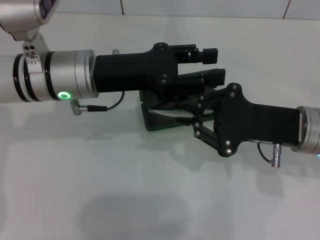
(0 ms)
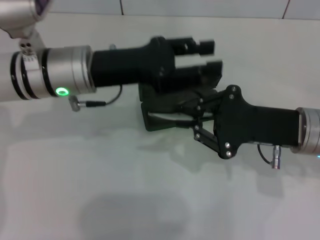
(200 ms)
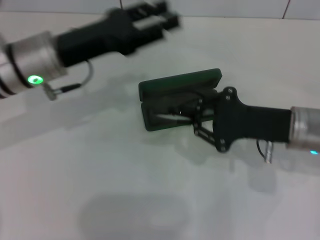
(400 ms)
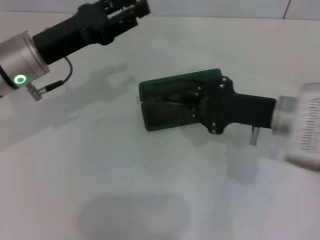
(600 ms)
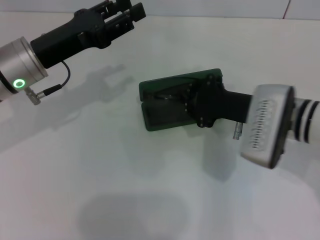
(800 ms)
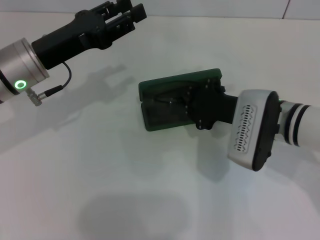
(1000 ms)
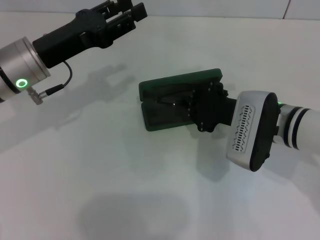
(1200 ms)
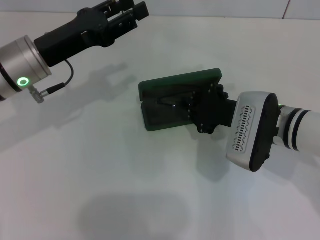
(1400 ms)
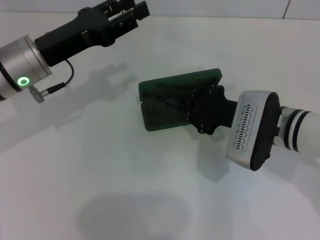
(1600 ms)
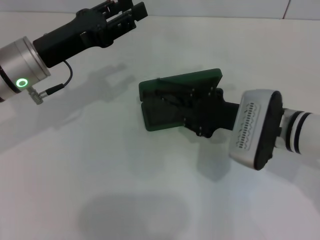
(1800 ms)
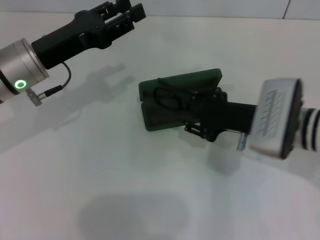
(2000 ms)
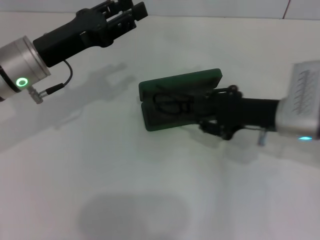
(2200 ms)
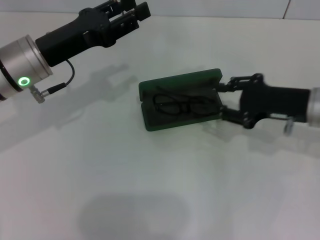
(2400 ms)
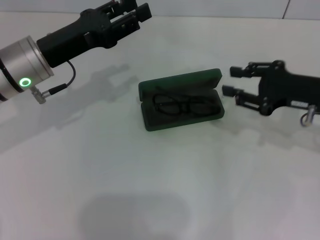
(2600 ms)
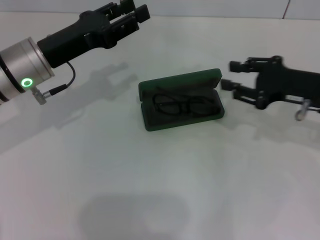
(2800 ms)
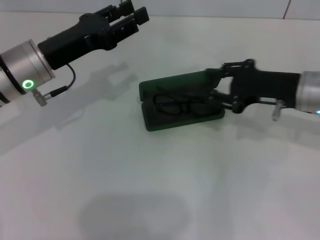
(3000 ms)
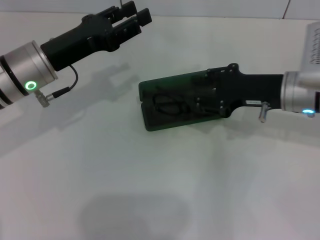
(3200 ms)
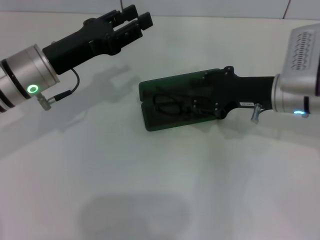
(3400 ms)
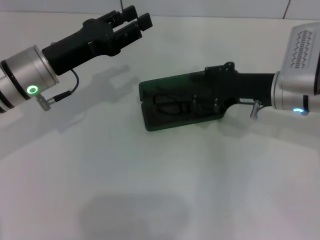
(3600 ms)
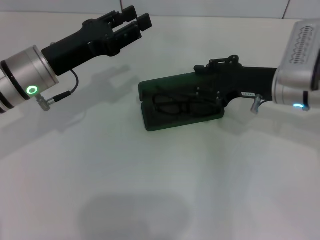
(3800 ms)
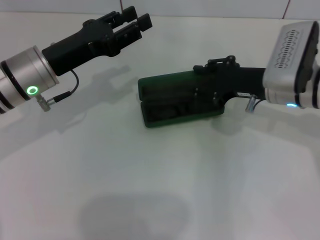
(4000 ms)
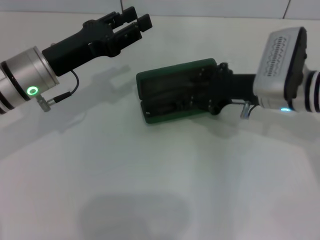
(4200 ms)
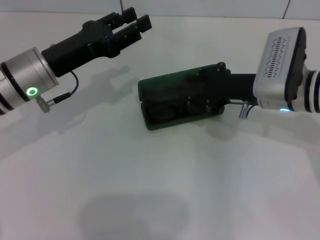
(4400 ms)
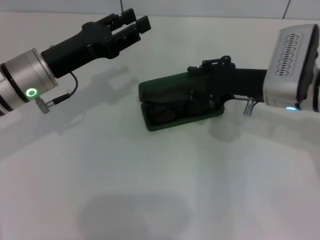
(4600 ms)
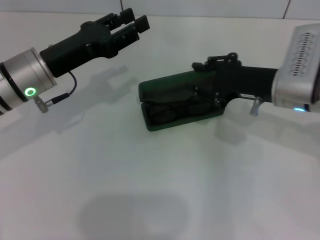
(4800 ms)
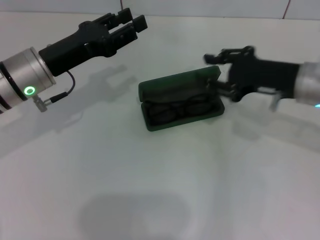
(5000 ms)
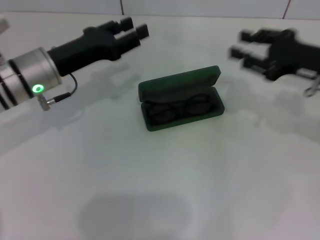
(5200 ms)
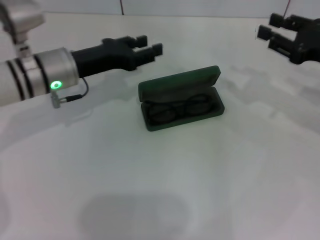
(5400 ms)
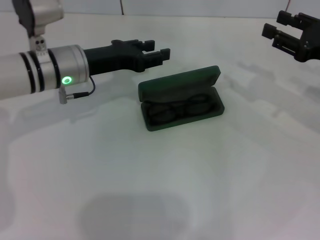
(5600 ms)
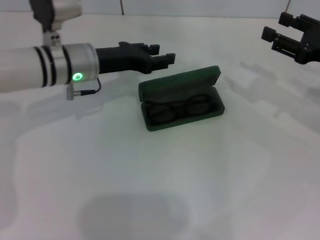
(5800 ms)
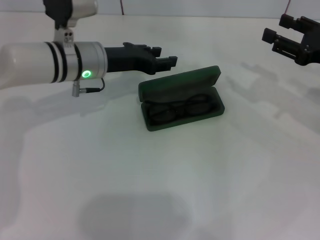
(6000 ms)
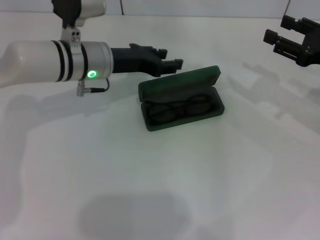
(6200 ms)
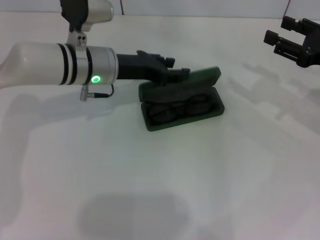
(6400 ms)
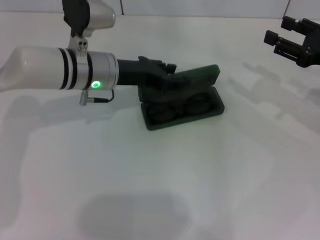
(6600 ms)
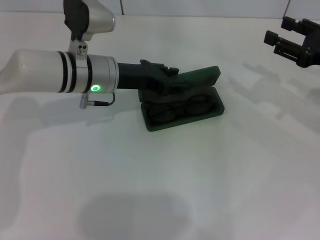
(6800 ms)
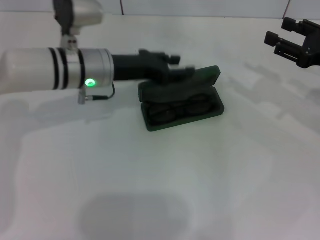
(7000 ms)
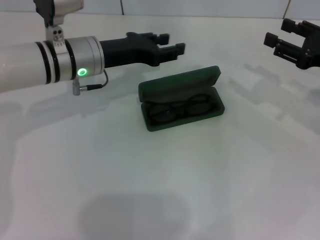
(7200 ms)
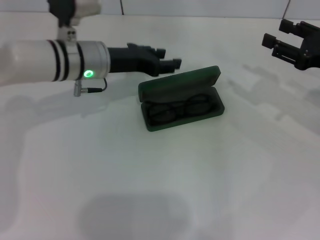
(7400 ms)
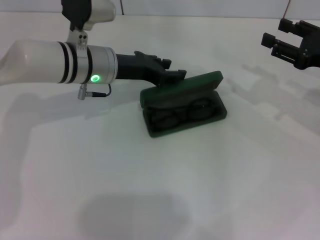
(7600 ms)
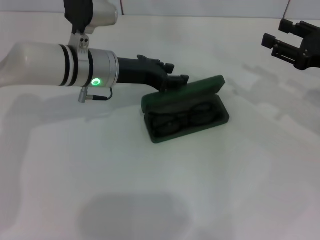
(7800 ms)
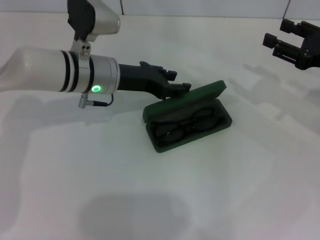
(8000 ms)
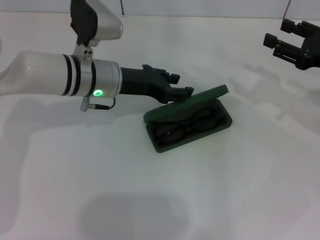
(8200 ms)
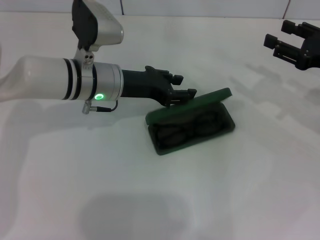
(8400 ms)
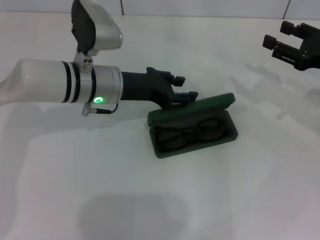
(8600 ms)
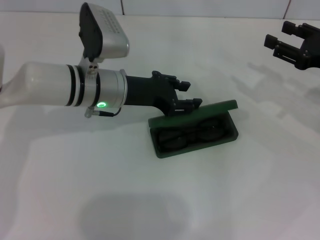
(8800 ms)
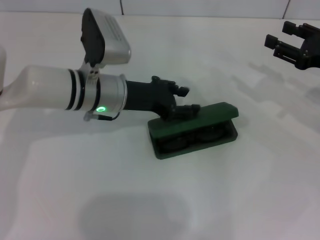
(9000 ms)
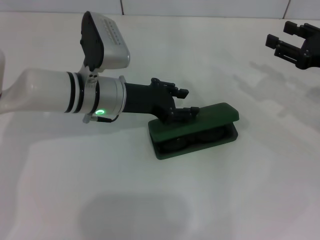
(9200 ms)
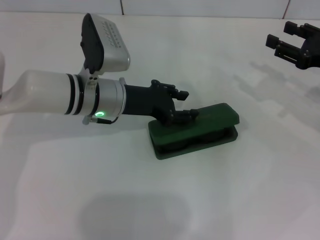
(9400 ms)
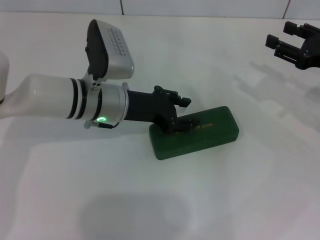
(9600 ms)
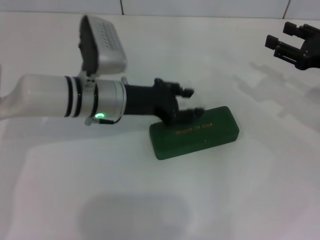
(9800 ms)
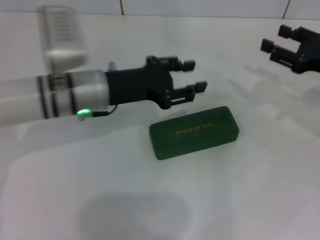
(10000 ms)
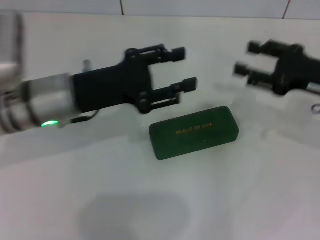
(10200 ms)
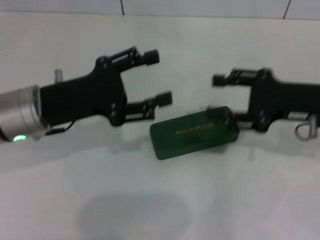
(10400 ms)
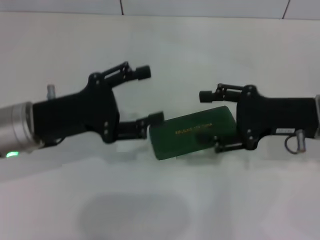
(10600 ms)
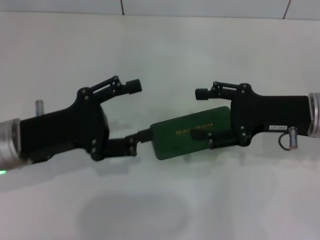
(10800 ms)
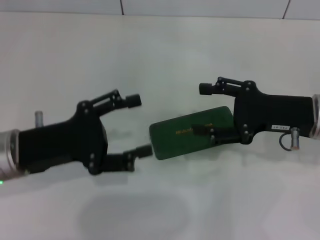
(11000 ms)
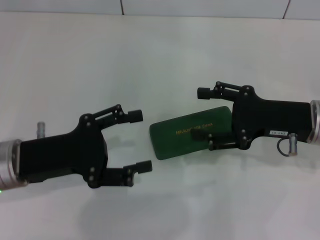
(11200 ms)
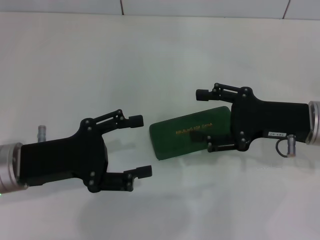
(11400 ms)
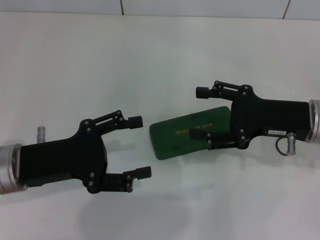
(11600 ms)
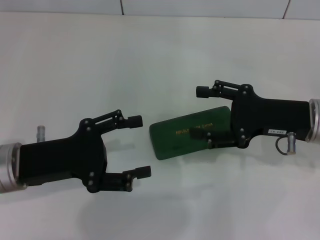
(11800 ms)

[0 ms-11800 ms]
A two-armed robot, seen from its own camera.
Step, 200 ms to 2000 ms: Put the glasses into the case with your right hand.
Step, 2200 ms to 9400 ms: Close the glasses case with your left hand.
0 ms to 1400 ms: The left gripper goes roughly 5 cm to the left. The right gripper moves approximately 5 cm.
1400 ms to 3000 ms: The right gripper shifts roughly 5 cm to the right, and opens its fingers.
3000 ms to 4400 ms: The right gripper travels to the left by some 5 cm.
4400 ms to 6000 ms: The right gripper moves to the right, roughly 15 cm. Meanwhile the left gripper shifts some 10 cm forward and to the right.
6000 ms to 8800 ms: The grippers stay close to where they were, moving slightly.
8800 ms to 10400 ms: The right gripper moves to the left, about 5 cm, while the left gripper is displaced backward and to the left by about 10 cm.
10400 ms to 11800 ms: The left gripper heads backward, covering some 5 cm.
